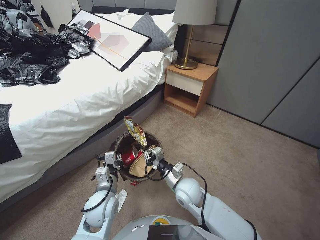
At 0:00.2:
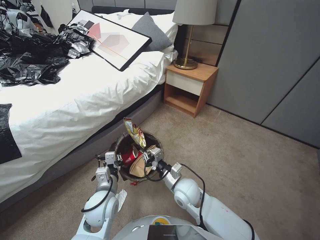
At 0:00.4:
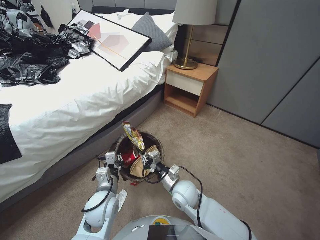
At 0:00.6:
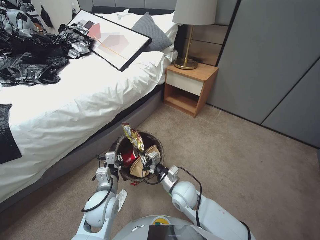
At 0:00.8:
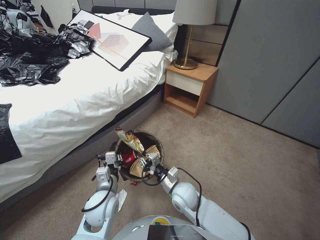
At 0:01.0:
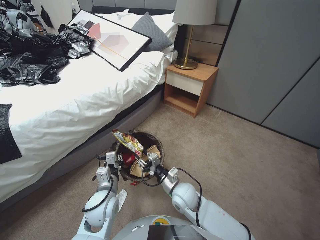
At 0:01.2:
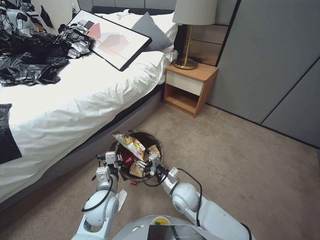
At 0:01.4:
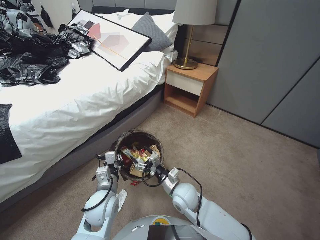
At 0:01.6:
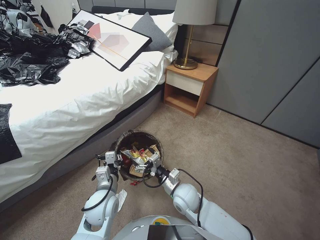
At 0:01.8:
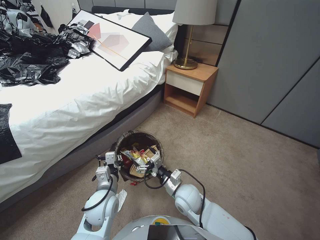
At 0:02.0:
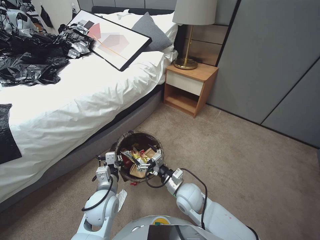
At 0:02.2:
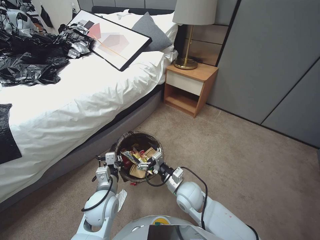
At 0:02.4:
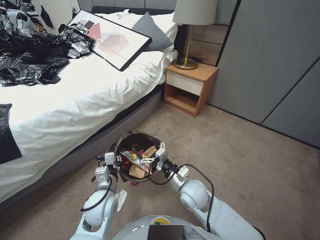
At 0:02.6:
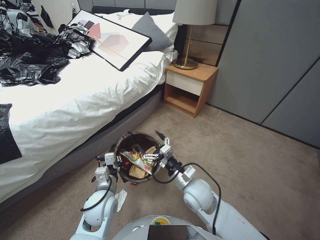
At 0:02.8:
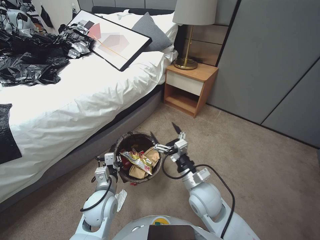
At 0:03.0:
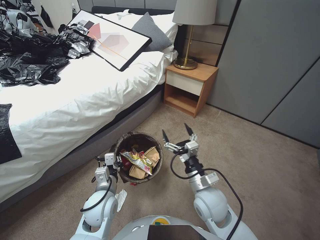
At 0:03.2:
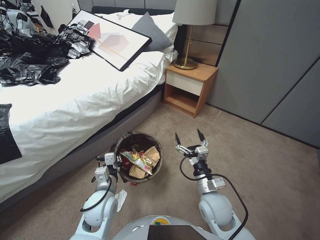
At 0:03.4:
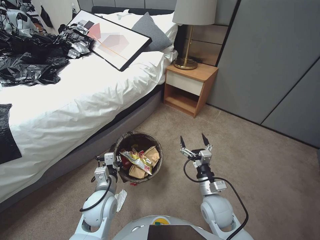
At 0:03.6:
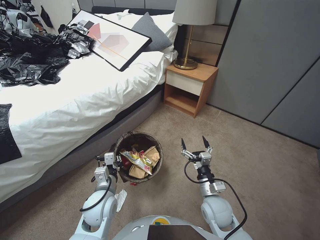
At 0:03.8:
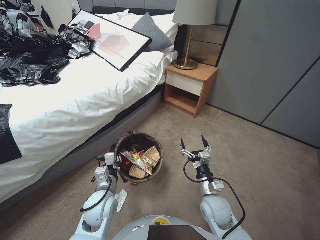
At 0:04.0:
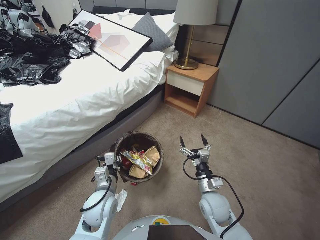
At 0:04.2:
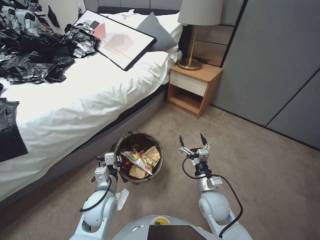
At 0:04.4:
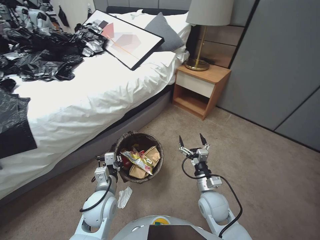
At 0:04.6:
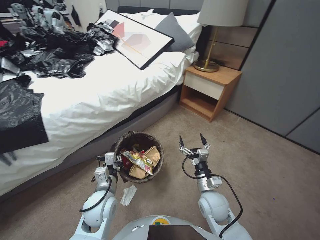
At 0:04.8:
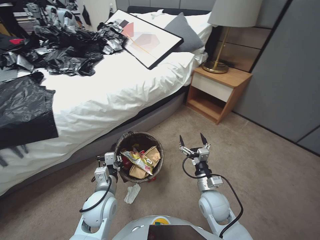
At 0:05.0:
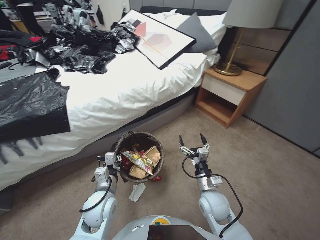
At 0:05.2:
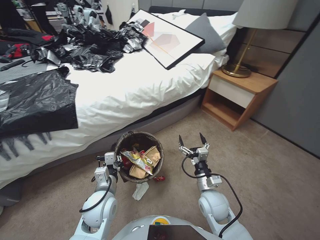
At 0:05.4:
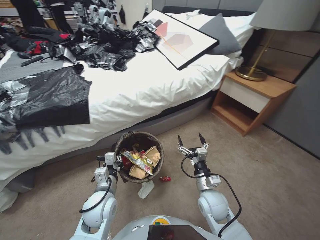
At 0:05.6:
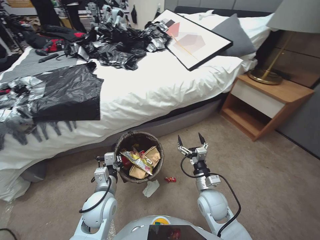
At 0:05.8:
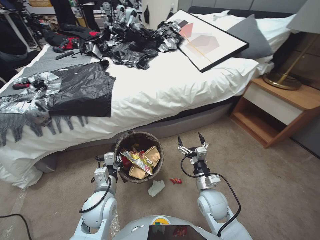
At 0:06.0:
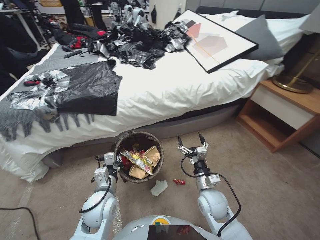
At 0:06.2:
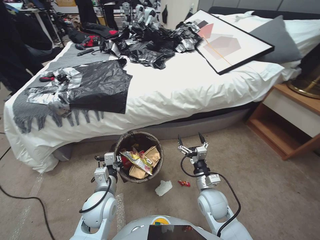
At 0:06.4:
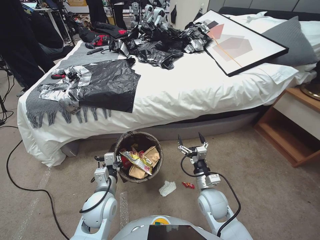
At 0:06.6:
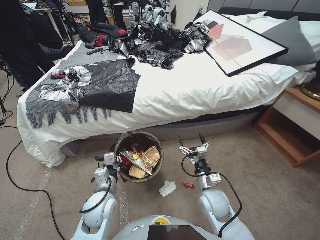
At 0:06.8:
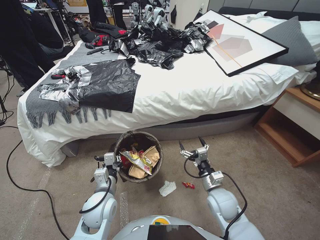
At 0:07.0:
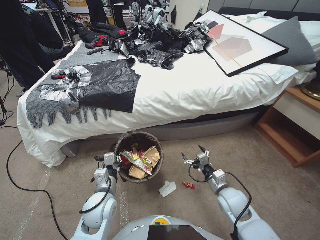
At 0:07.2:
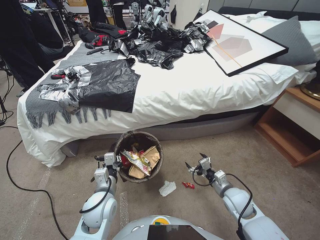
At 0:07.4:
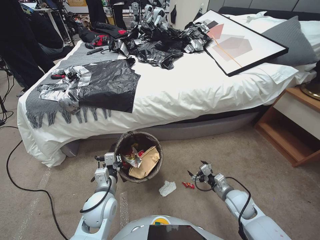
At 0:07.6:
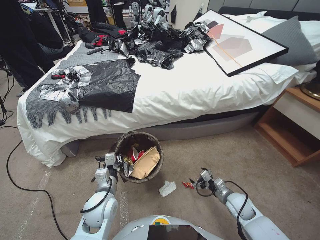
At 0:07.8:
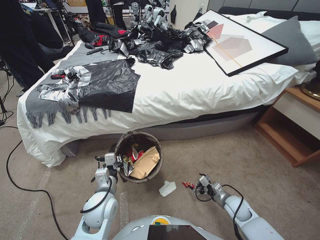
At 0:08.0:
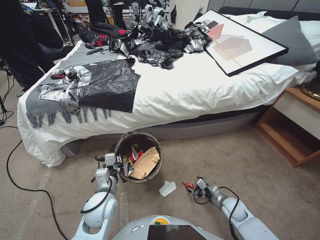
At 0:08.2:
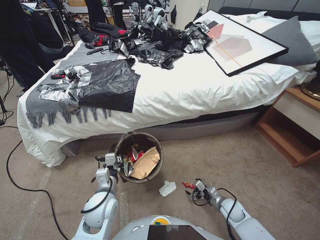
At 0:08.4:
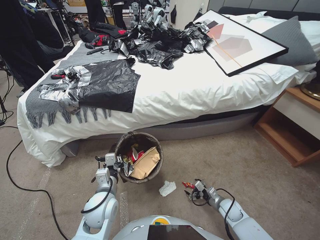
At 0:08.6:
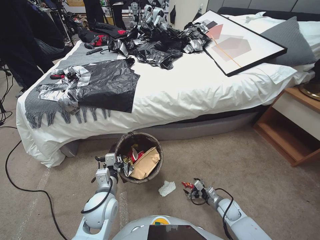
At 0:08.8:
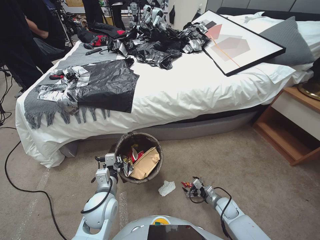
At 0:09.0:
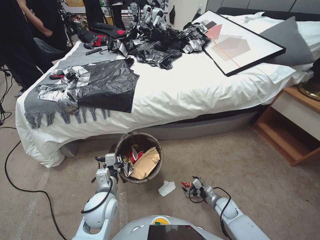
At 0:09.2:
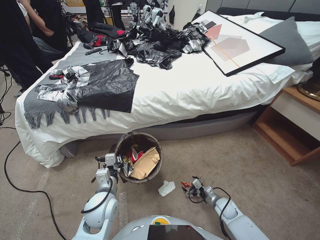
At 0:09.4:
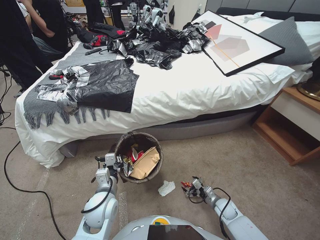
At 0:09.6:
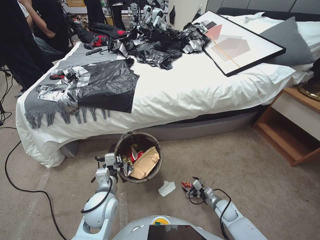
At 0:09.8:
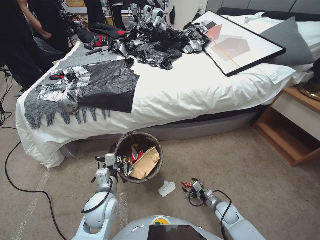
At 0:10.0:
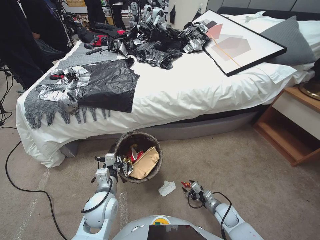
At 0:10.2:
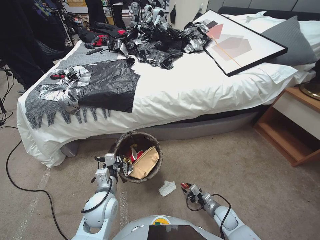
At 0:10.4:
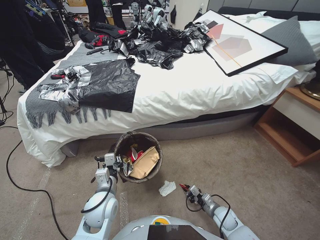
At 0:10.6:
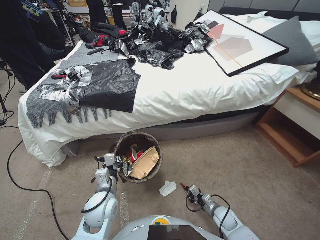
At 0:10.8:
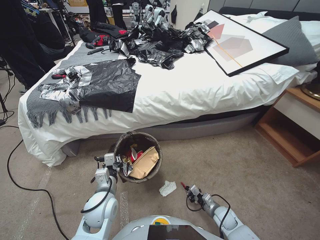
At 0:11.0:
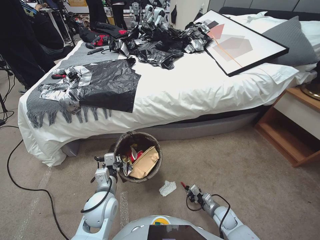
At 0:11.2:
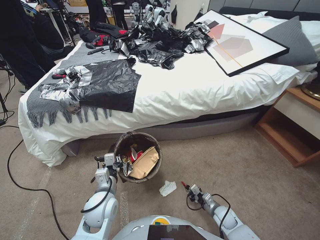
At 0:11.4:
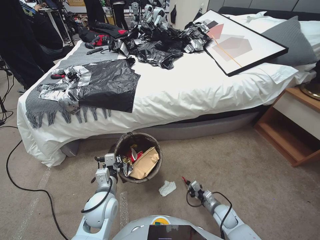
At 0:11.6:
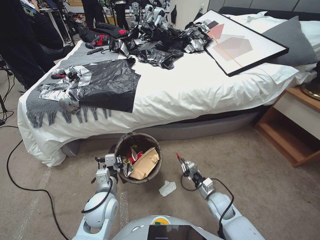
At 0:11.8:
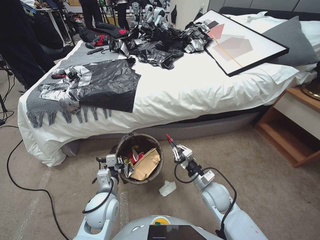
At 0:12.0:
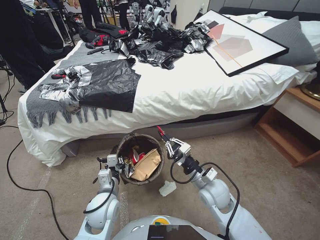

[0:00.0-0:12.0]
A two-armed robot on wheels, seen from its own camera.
Task of the whole recording: Pick up the trash bin, then pick up the garbage from the floor and place it into the trash bin.
0:00.0 to 0:01.6: The right gripper opens its fingers.
0:01.6 to 0:03.0: The right gripper travels upward and to the right by roughly 10 cm.
0:03.0 to 0:04.4: The right gripper travels downward by roughly 10 cm.
0:06.0 to 0:07.6: The right gripper travels to the right and downward by approximately 15 cm.
0:07.6 to 0:09.0: The right gripper goes some 10 cm downward.
0:09.0 to 0:10.4: The right gripper closes.
0:10.4 to 0:12.0: The right gripper moves upward and to the left, about 25 cm.

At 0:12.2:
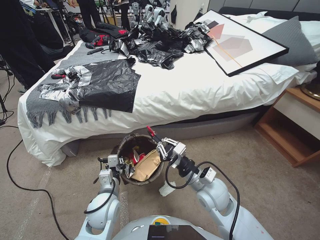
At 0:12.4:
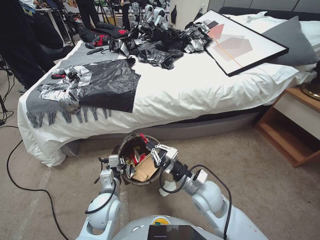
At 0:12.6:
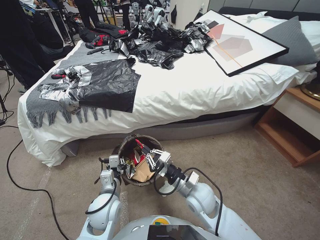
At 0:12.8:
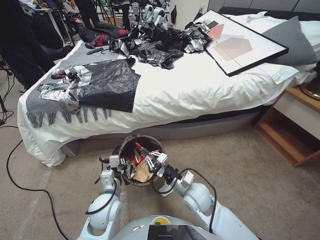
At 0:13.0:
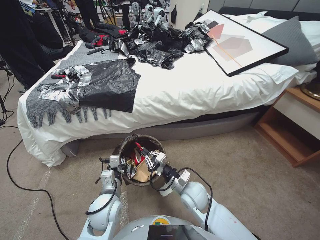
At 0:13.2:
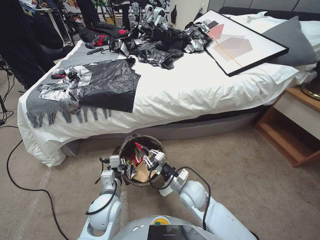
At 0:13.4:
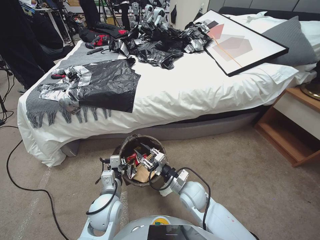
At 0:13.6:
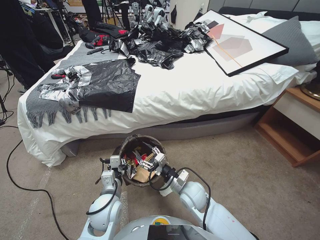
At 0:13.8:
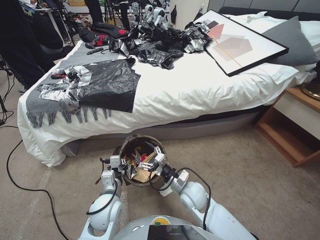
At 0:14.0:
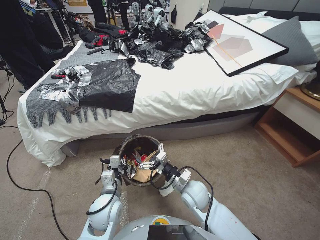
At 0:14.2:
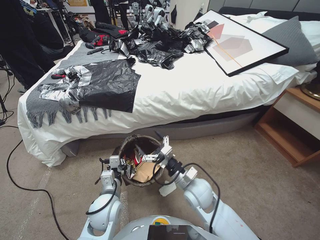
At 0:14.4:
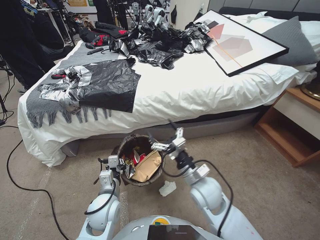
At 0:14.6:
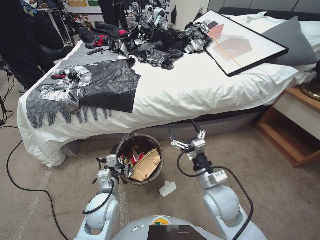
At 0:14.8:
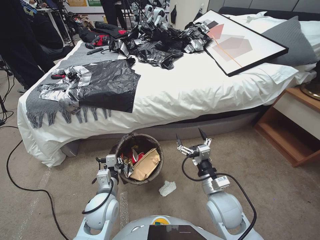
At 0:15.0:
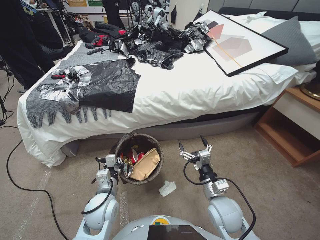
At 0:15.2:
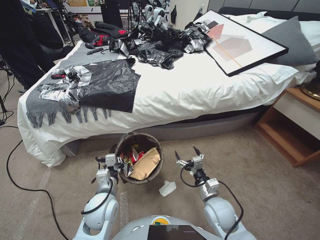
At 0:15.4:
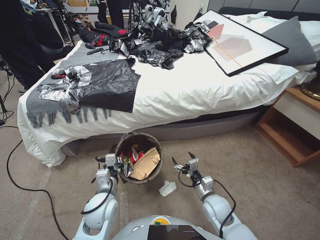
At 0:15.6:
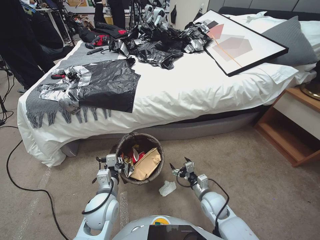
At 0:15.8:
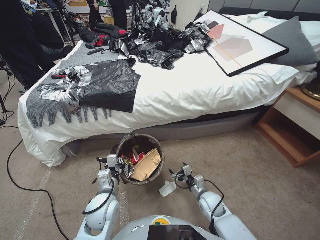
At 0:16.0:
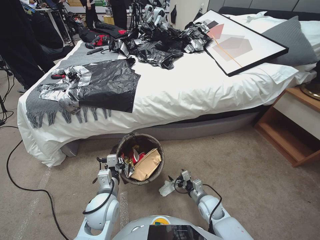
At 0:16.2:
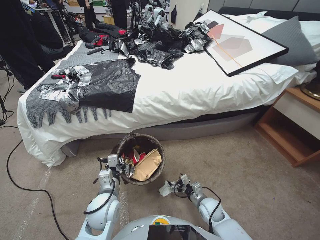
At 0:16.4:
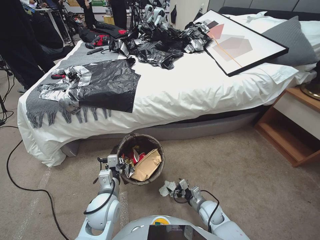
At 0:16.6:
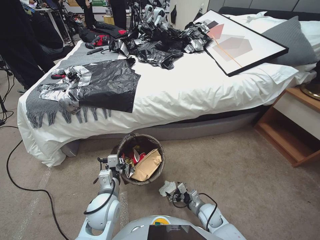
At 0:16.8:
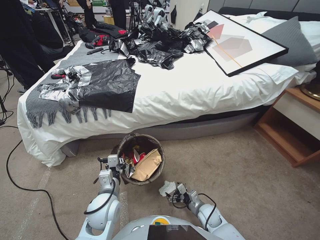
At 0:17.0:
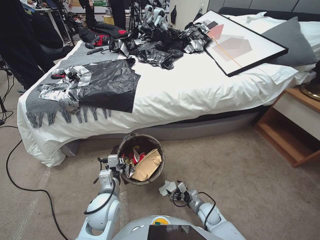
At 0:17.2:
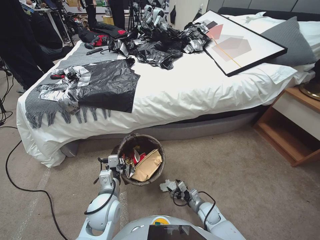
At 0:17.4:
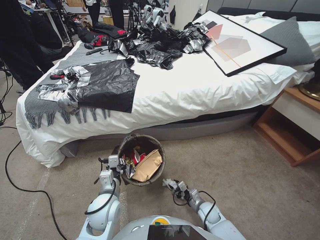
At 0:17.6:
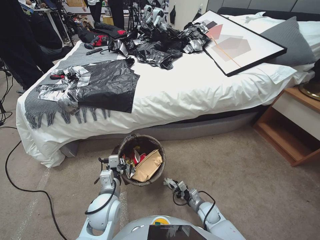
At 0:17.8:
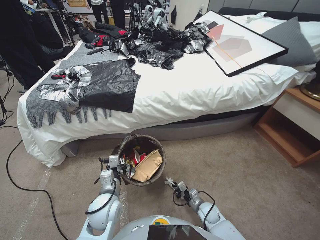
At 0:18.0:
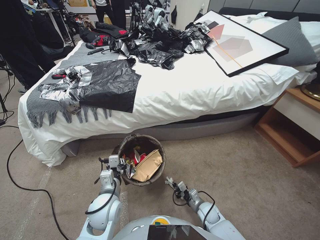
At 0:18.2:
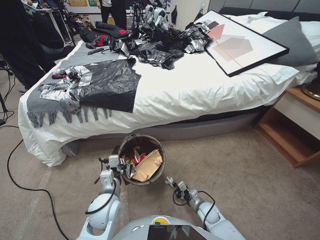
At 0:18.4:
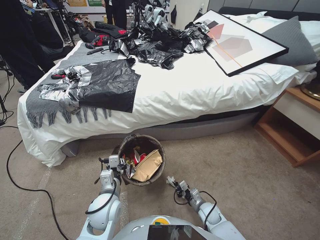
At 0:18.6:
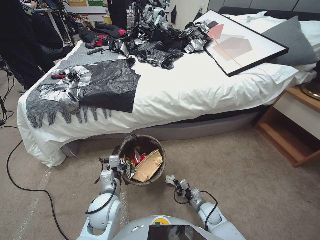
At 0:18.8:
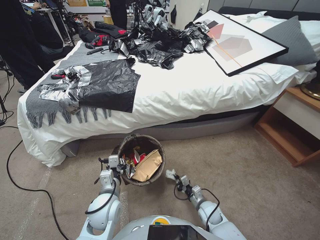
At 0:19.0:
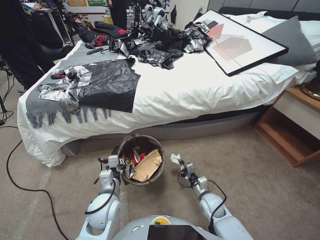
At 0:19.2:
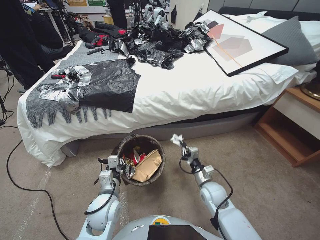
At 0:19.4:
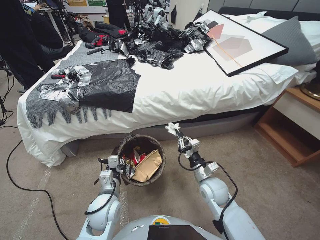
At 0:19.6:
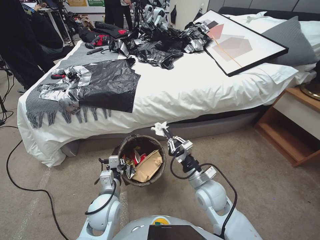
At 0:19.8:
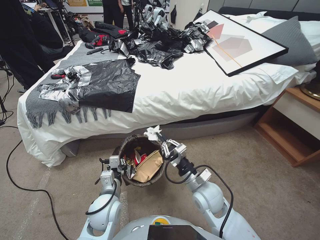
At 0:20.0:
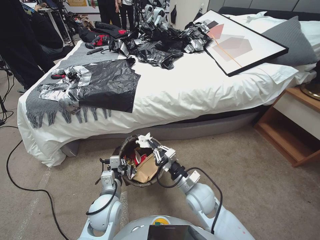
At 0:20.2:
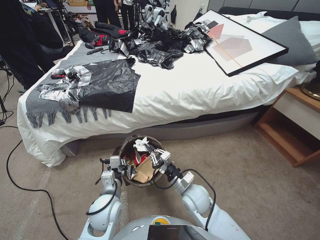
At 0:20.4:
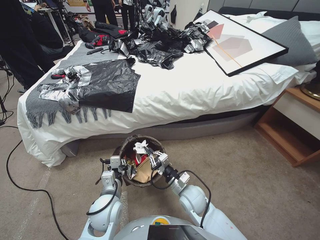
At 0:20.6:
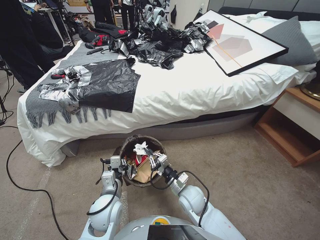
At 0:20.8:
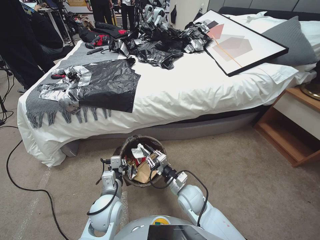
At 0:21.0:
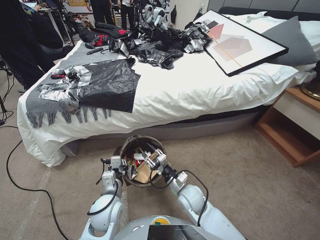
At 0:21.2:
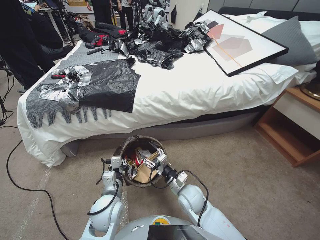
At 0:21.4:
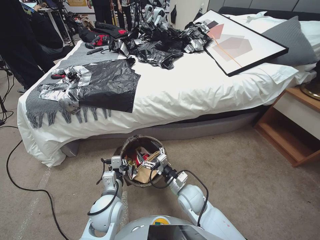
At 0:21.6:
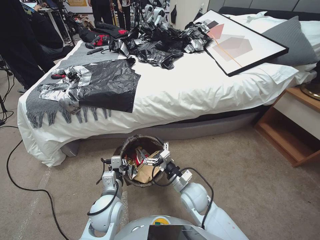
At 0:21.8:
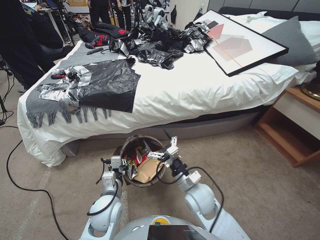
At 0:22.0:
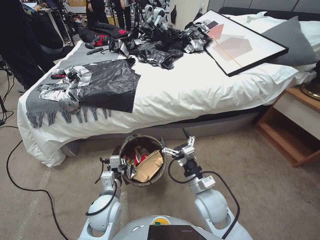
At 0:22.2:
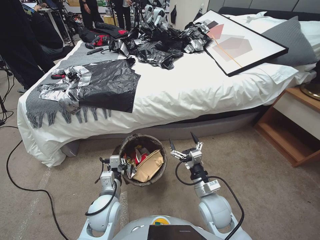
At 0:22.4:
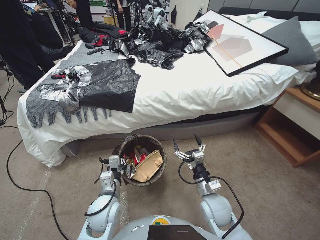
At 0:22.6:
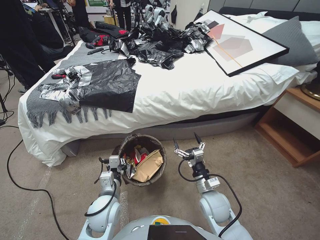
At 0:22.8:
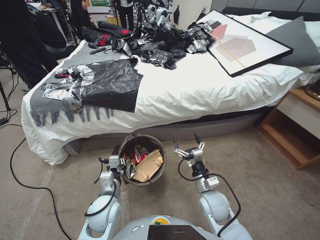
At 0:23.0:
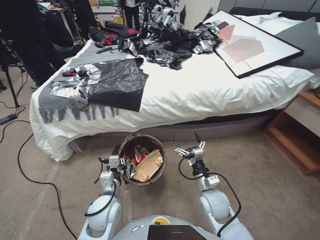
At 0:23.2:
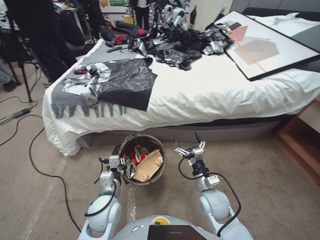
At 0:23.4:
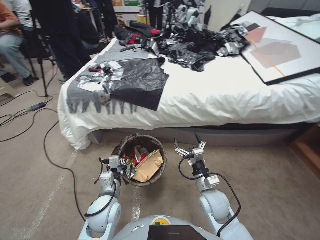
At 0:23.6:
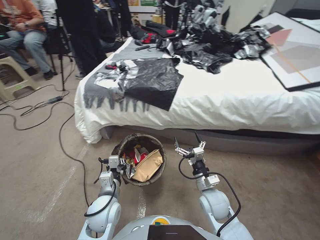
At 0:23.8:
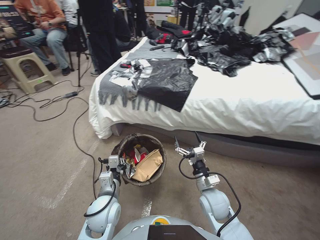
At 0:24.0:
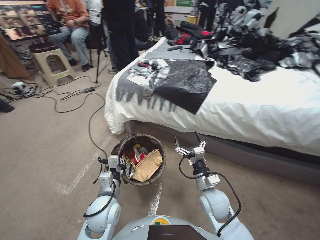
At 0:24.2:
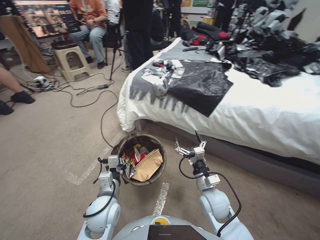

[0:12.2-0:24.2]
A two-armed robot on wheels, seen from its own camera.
Task of the whole recording: Pick up the trash bin, then pick up the garbage from the floor and place it into the trash bin.
0:12.2 to 0:13.8: The right gripper moves downward, roughly 10 cm, and opens its fingers.
0:13.8 to 0:15.2: The right gripper moves to the right and backward, approximately 10 cm, and goes upward and returns, about 10 cm each way.
0:15.2 to 0:16.6: The right gripper is displaced downward by about 20 cm.
0:16.6 to 0:18.2: The right gripper closes its fingers.
0:18.2 to 0:19.8: The right gripper shifts about 25 cm upward.
0:19.8 to 0:21.2: The right gripper shifts roughly 10 cm downward, and opens.
0:21.2 to 0:22.6: The right gripper travels upward and to the right by approximately 10 cm, and opens up.
